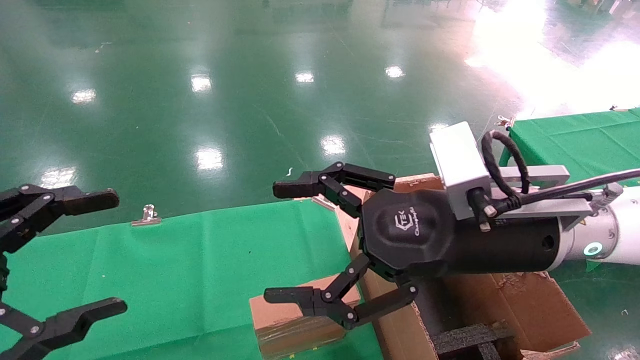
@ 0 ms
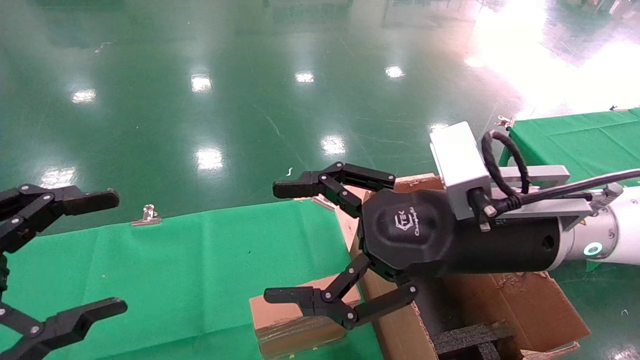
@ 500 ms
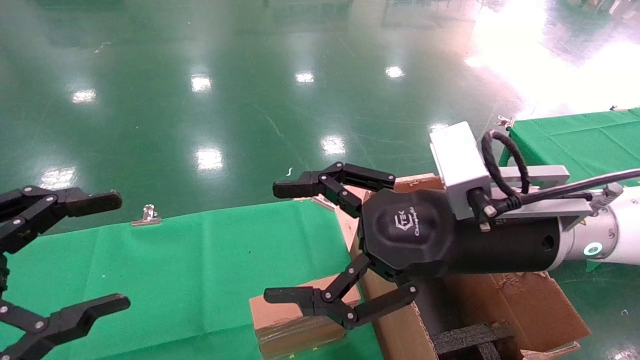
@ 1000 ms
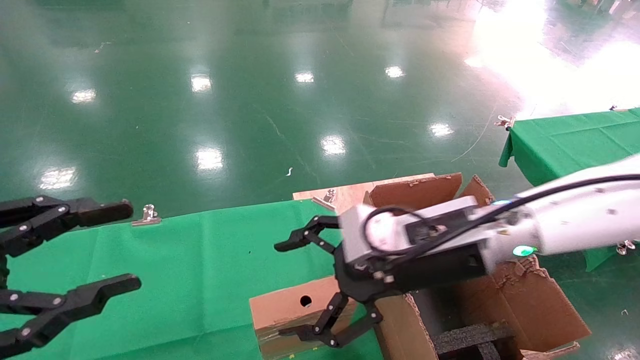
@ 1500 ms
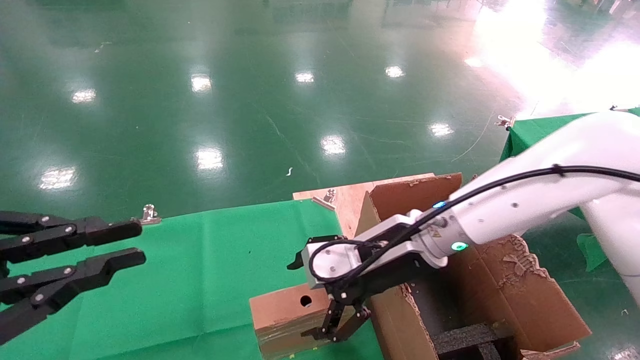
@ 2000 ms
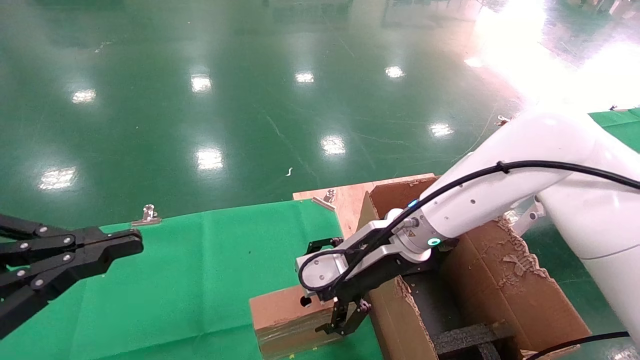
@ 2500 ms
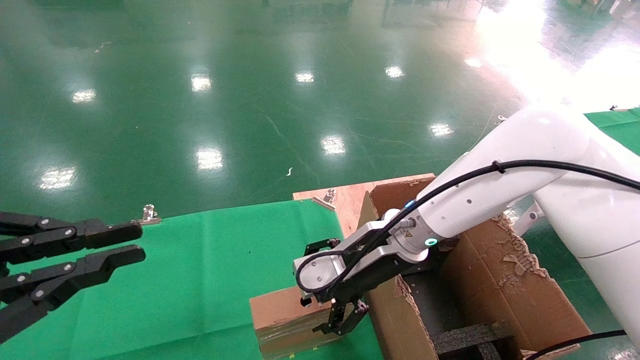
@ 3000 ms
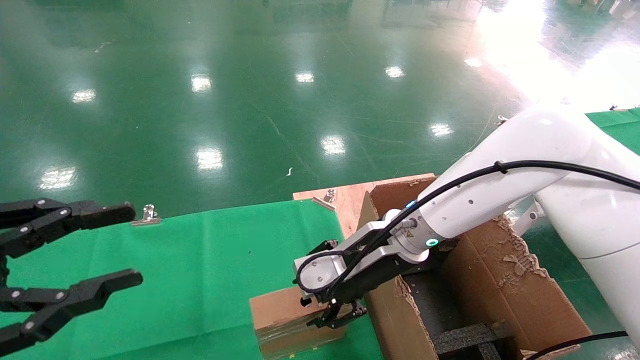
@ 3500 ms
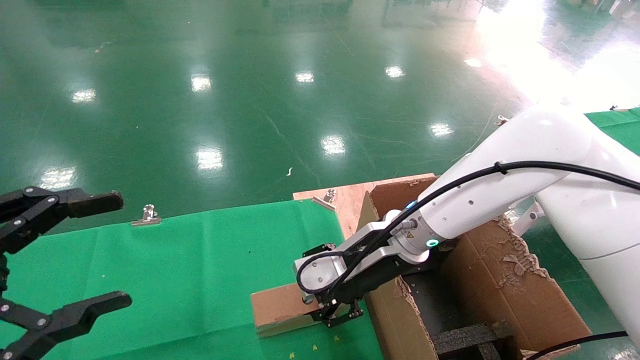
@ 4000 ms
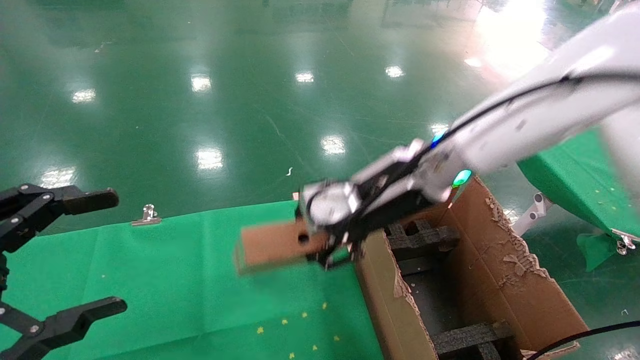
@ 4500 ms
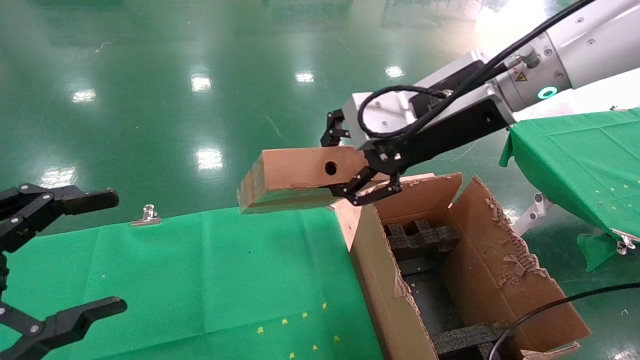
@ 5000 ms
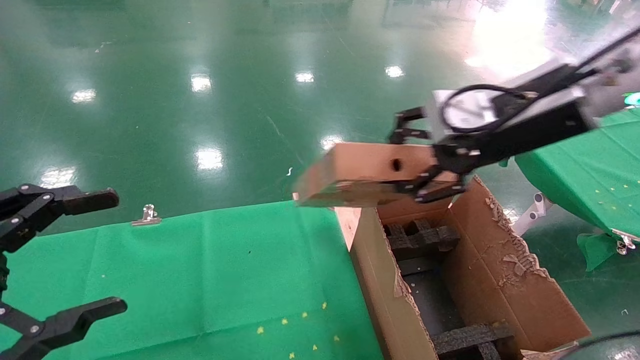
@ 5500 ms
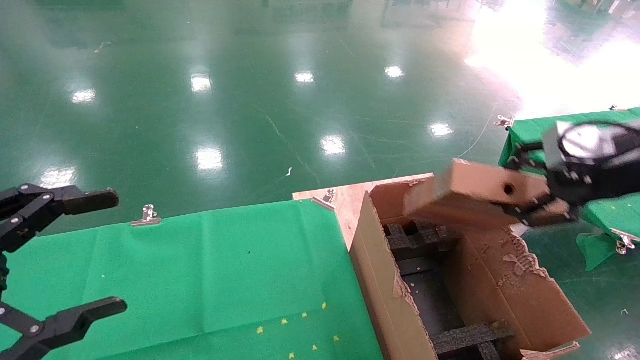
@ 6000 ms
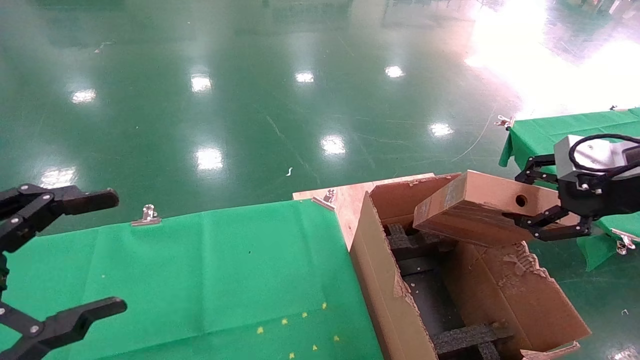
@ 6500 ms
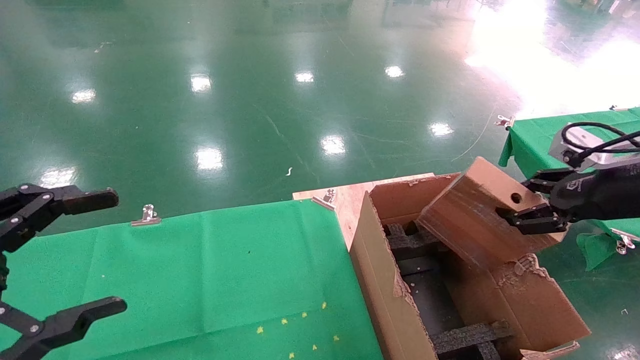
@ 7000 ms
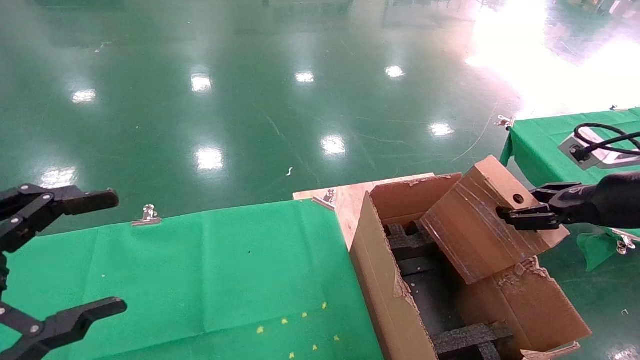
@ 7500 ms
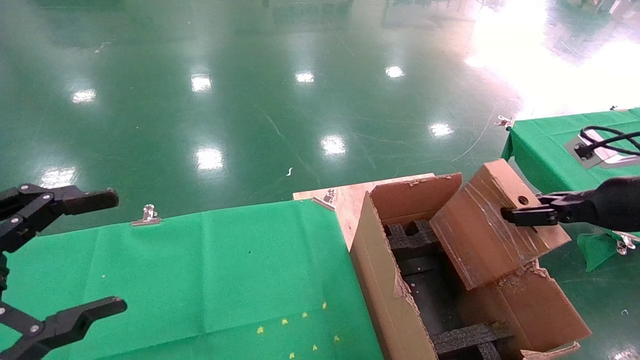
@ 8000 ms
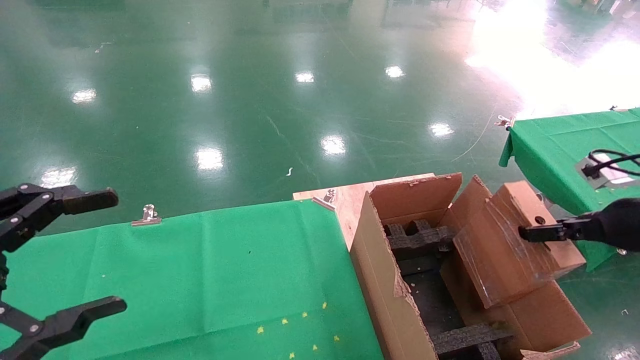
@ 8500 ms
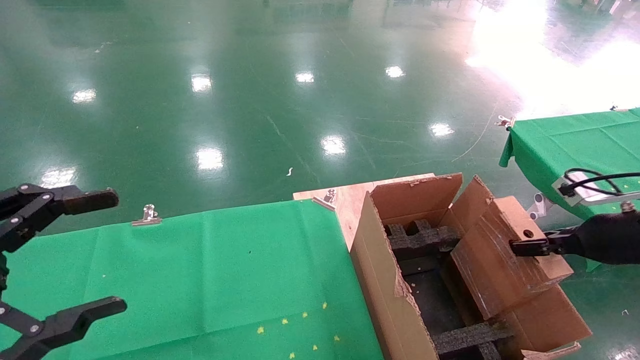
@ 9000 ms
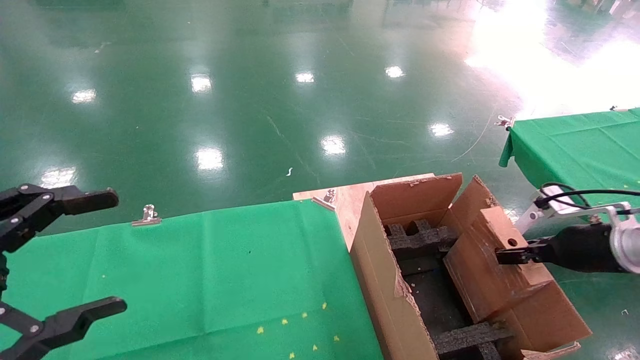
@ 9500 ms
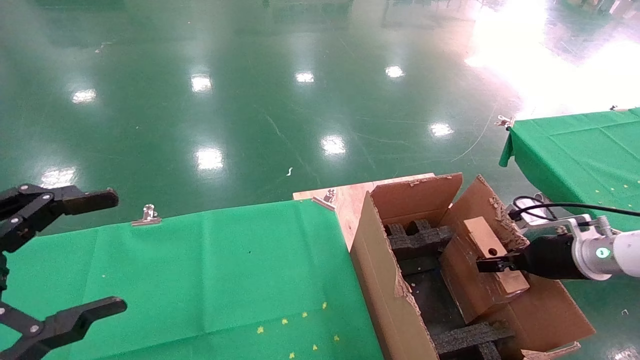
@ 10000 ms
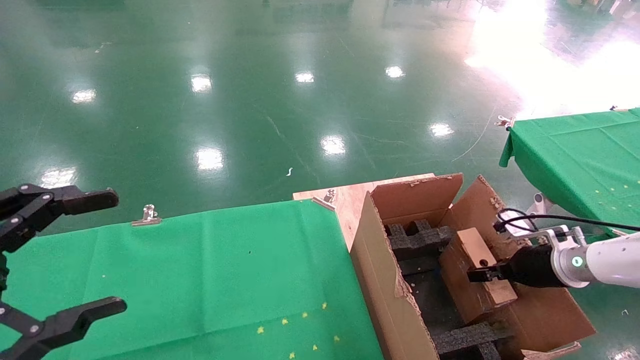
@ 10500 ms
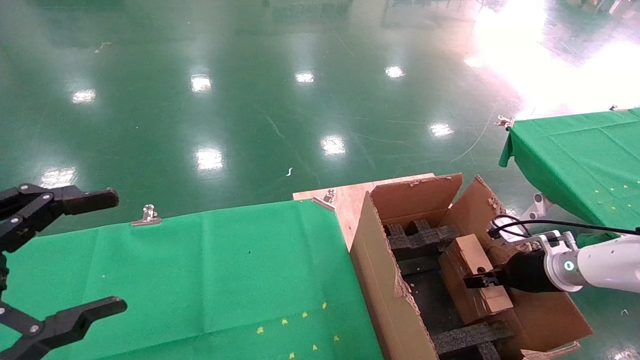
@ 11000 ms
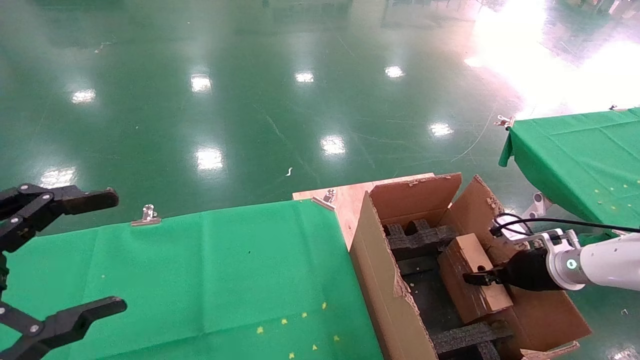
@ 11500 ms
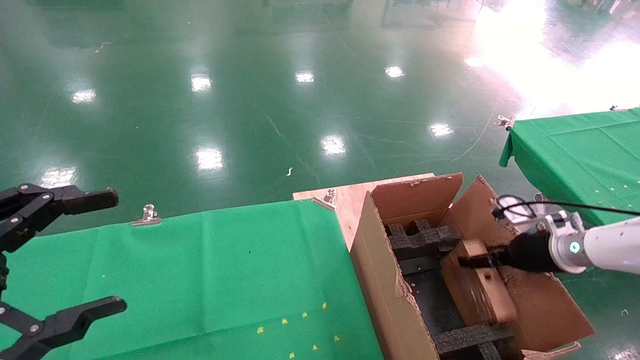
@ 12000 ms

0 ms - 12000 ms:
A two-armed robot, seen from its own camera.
Task of the whole recording: using a robotic arm to pick up a cardboard box and palace it the carton.
Step, 1500 ms - 3500 ms: Pick up the mouse and the power cord paper box.
0 ms - 2000 ms: The right gripper shifts approximately 10 cm forward and downward, while the left gripper closes up.
2000 ms - 4000 ms: The left gripper opens its fingers; the right gripper closes up.
4000 ms - 6000 ms: The right gripper is displaced to the right and upward by about 30 cm.
6000 ms - 8000 ms: The right gripper is displaced downward and to the right by some 10 cm.
8000 ms - 10000 ms: The right gripper travels downward and forward by approximately 15 cm.
10000 ms - 12000 ms: The right gripper opens.

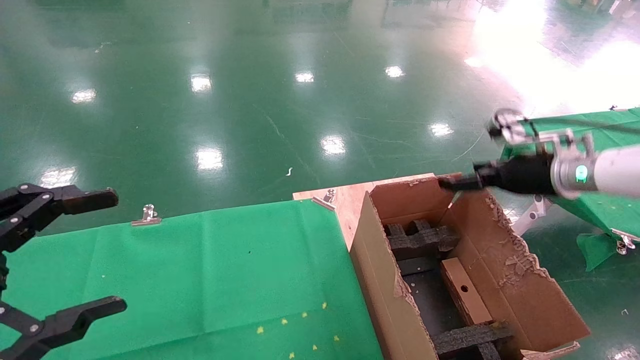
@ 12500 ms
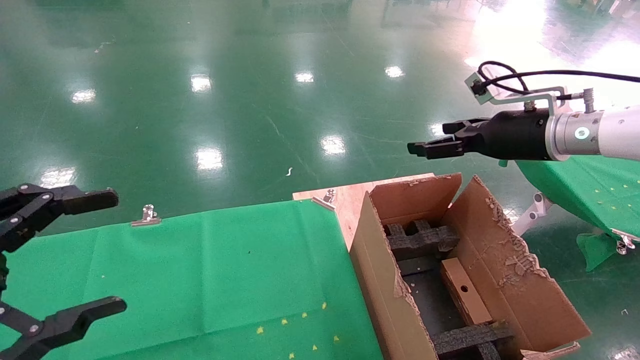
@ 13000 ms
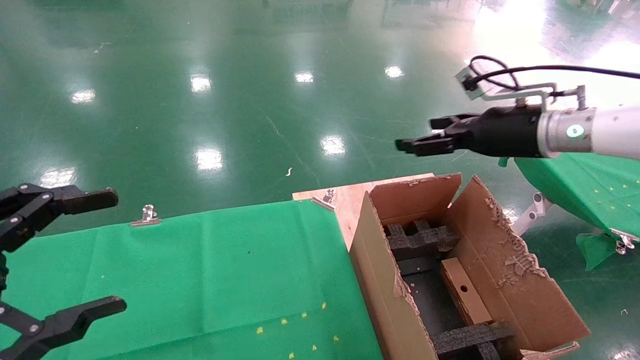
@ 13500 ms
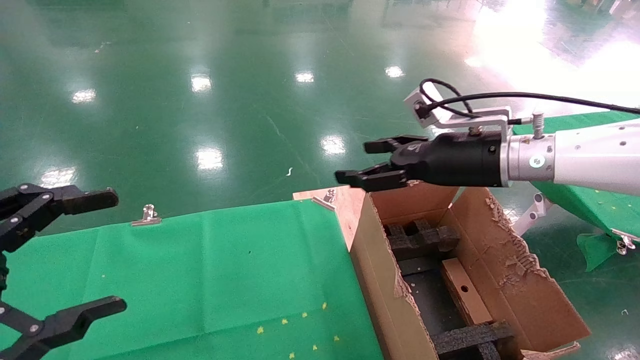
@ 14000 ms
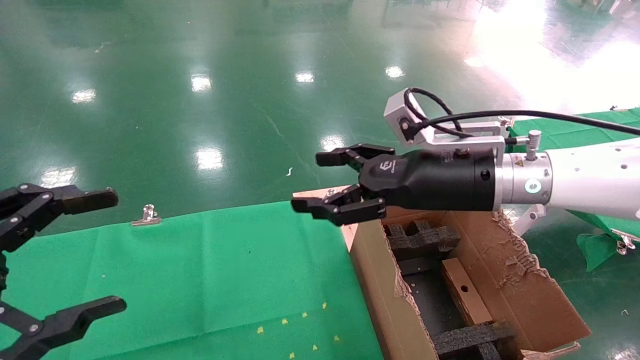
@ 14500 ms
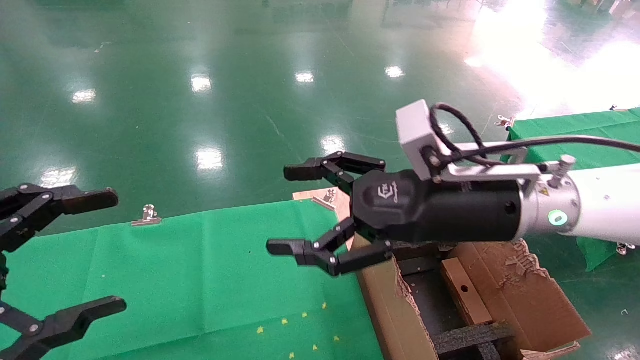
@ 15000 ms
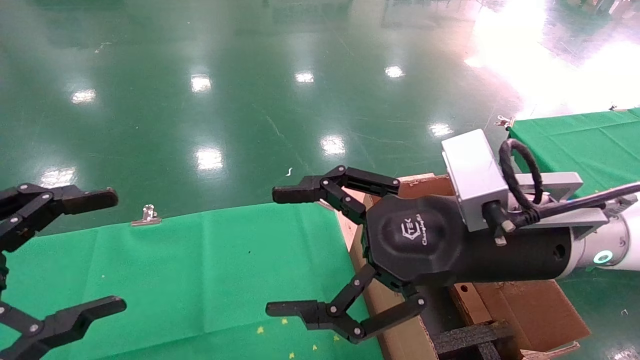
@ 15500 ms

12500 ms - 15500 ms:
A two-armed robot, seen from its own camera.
Task of the whole recording: using a robotic arm to pick up a cardboard box and palace it the carton.
12500 ms - 14000 ms: The right gripper moves to the left, roughly 15 cm.
14000 ms - 15500 ms: The right gripper moves backward and to the left, about 15 cm.
